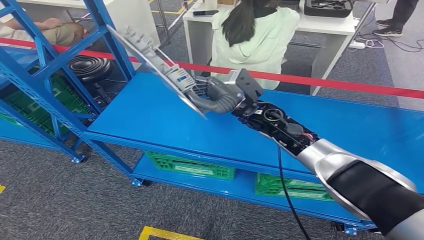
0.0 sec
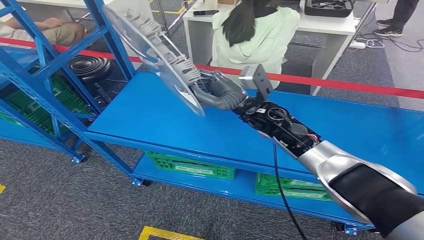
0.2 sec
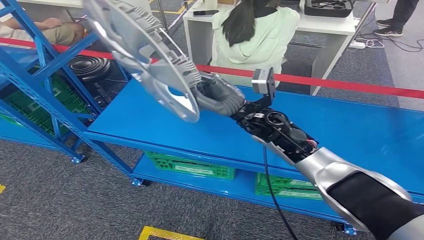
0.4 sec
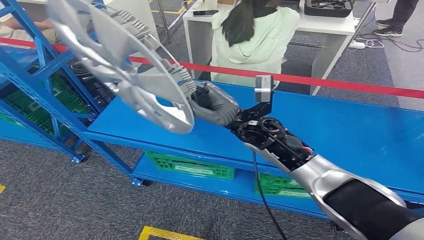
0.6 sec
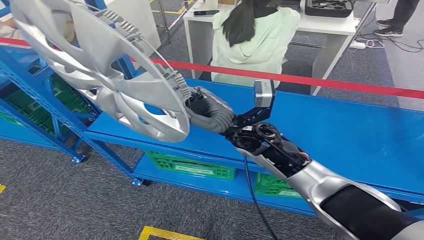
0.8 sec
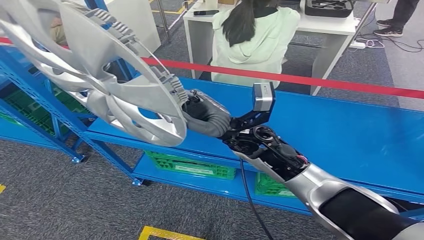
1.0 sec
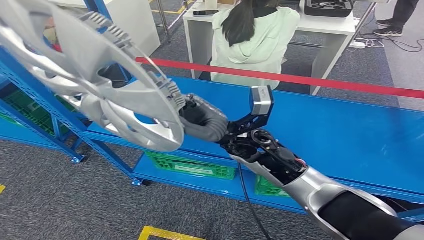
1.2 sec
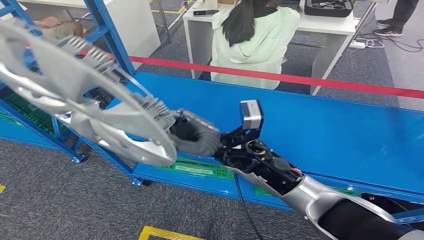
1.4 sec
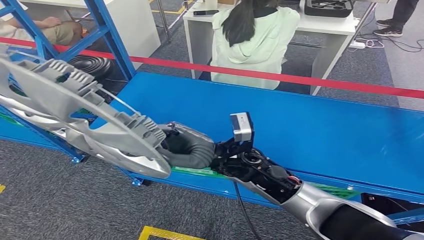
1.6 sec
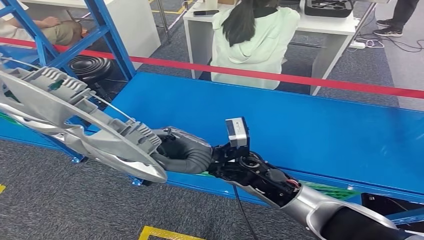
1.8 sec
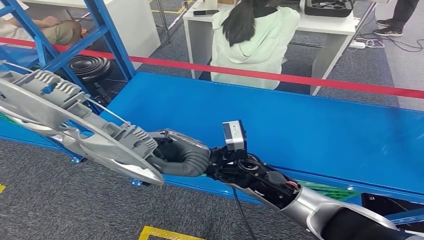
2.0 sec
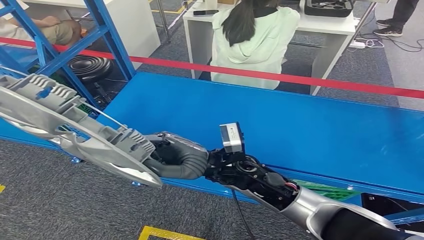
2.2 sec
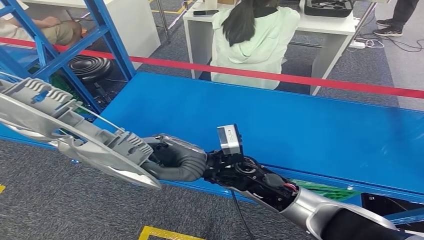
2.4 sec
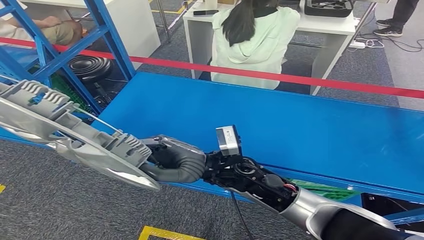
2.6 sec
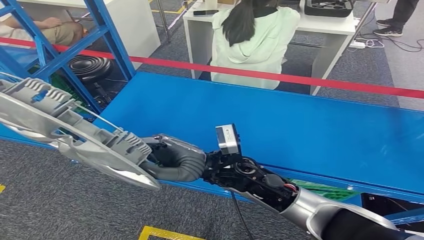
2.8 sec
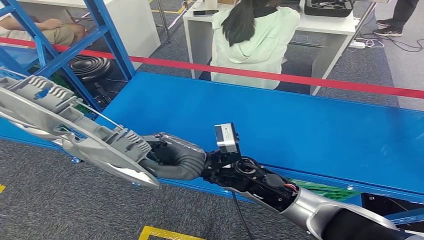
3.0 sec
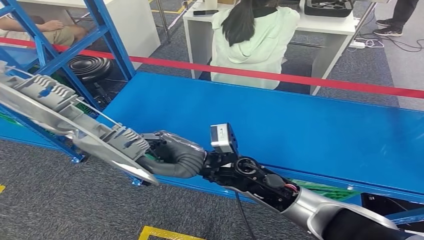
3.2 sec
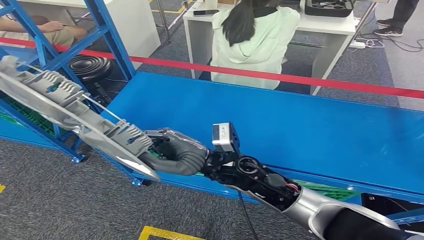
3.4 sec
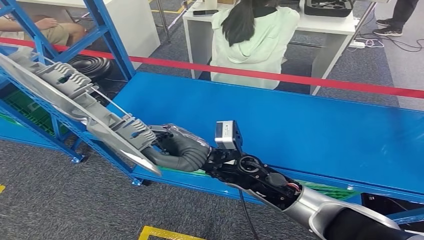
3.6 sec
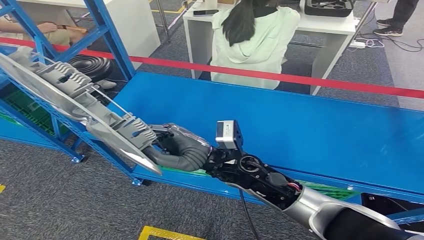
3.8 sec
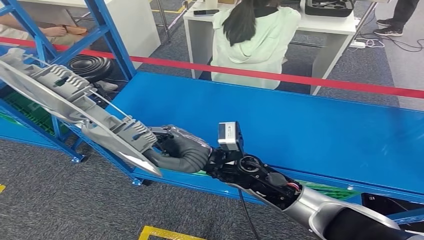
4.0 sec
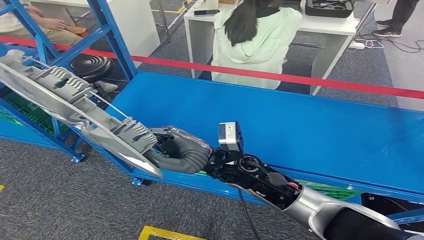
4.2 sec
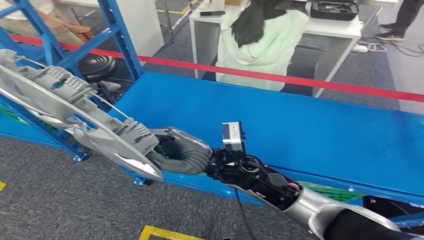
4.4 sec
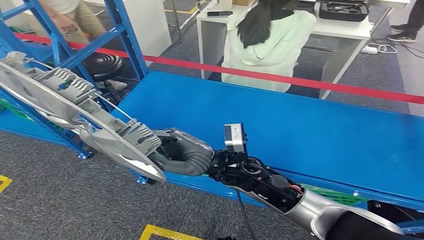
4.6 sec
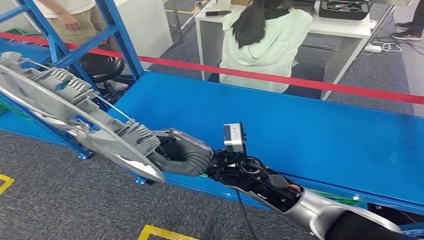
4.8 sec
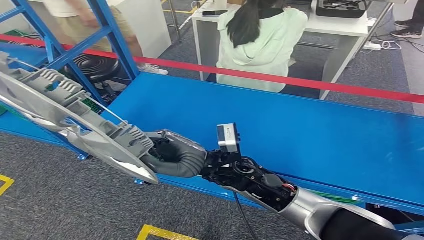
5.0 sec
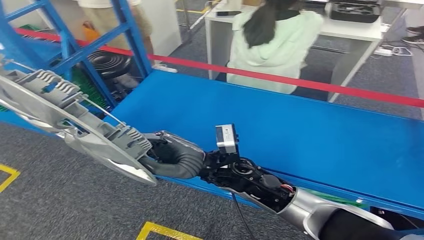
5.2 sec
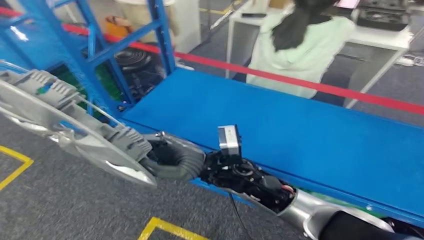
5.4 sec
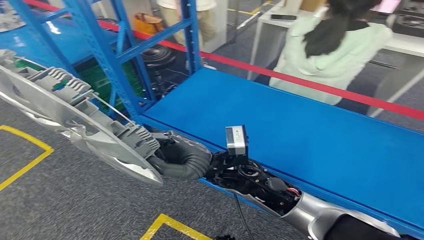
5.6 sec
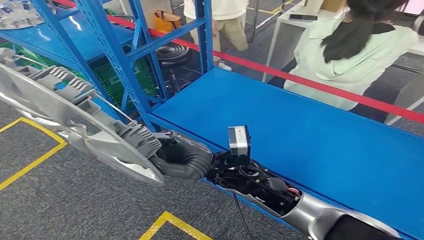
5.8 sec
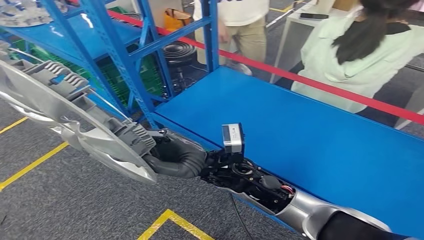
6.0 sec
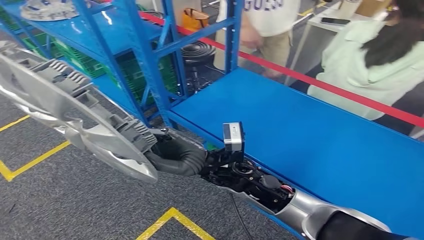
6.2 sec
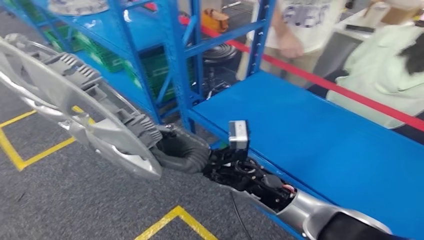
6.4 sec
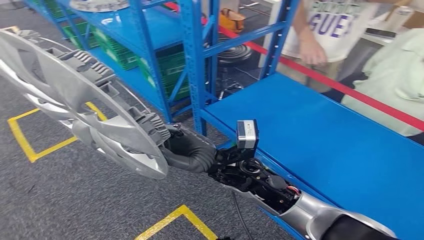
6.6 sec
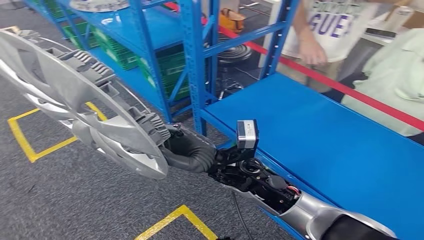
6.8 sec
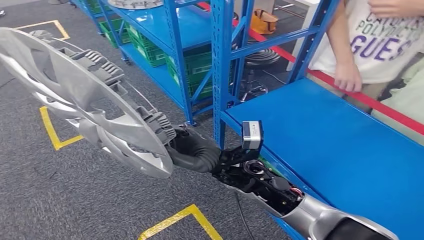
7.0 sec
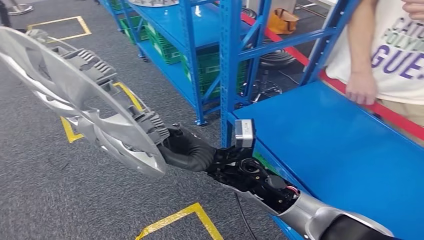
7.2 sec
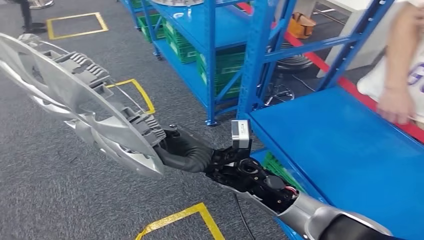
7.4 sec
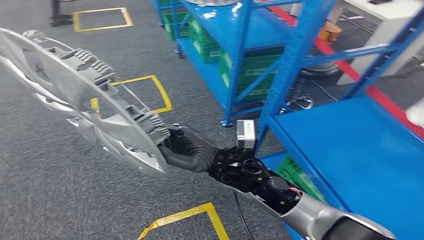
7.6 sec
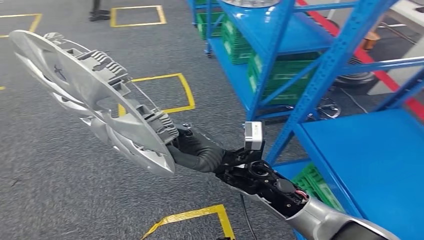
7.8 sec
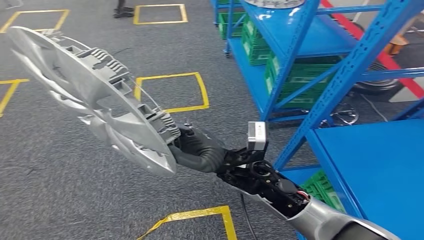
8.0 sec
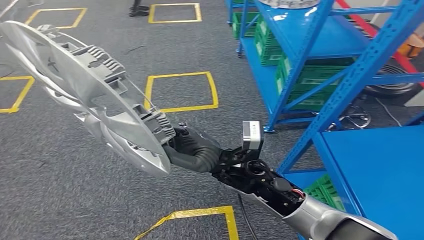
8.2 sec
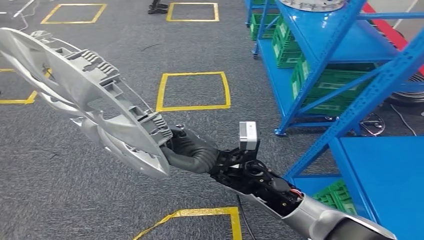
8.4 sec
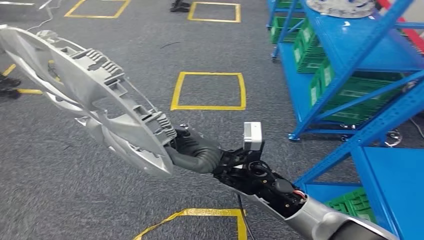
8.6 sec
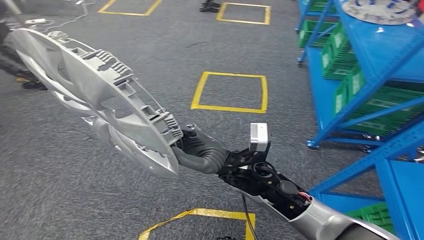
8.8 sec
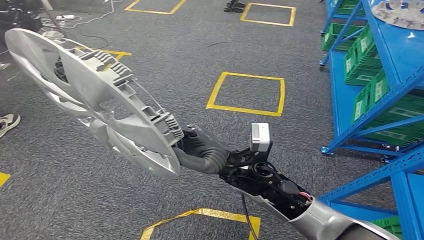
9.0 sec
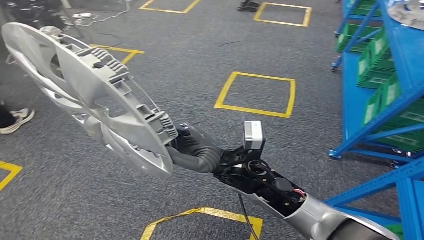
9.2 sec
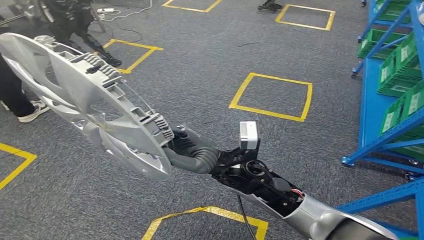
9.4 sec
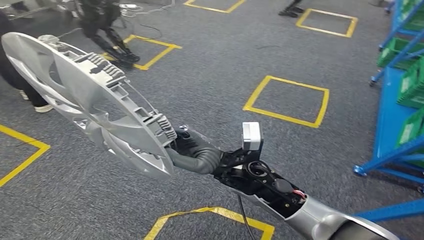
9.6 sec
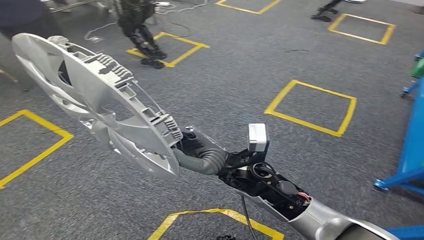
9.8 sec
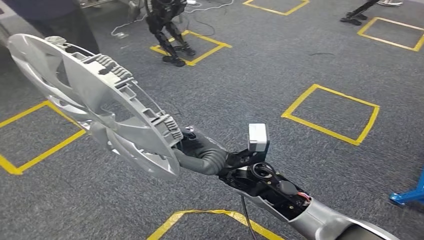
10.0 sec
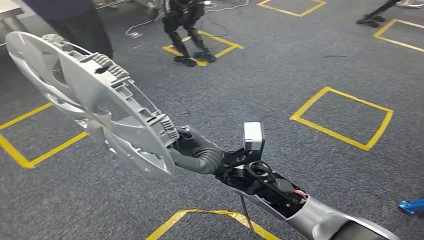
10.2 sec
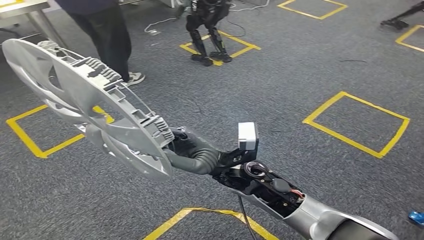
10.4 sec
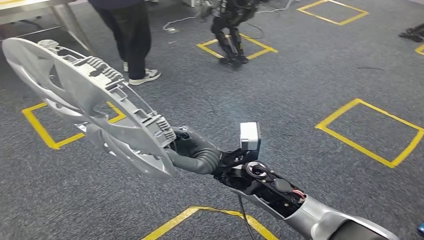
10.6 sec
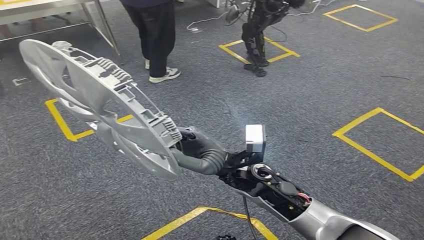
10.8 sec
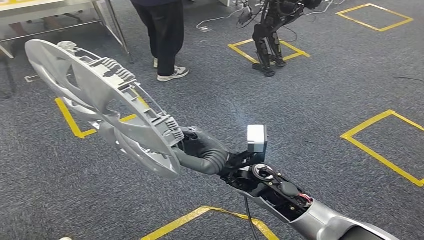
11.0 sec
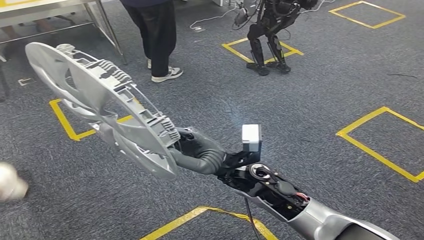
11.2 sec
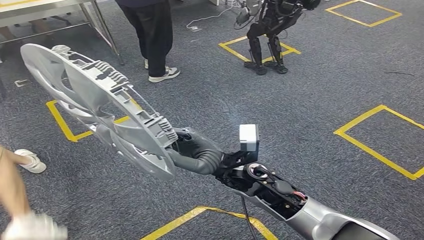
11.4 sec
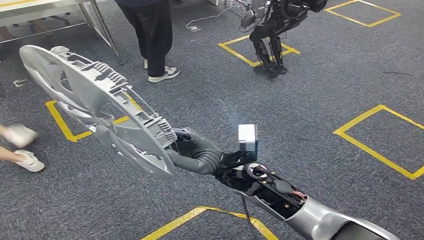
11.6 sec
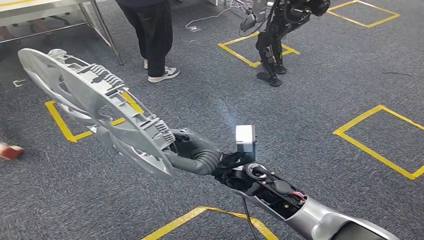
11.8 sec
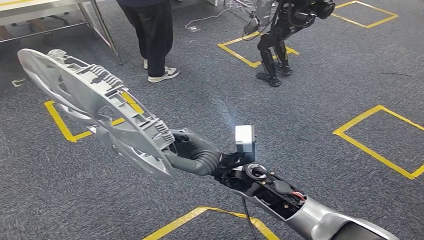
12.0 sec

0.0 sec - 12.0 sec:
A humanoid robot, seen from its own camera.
Step, 0.0 sec - 6.2 sec: Pick up the small component from the shelf.
1.6 sec - 3.0 sec: The hands make only small movements.

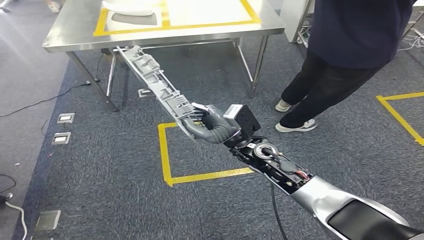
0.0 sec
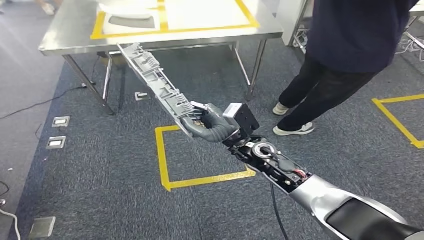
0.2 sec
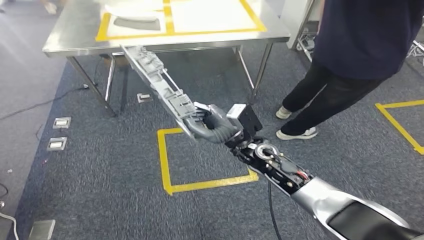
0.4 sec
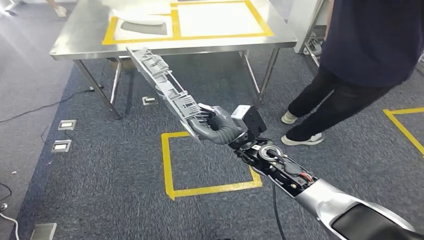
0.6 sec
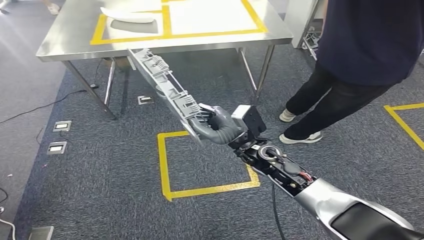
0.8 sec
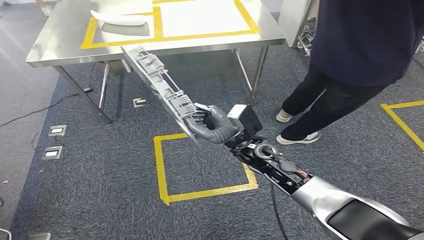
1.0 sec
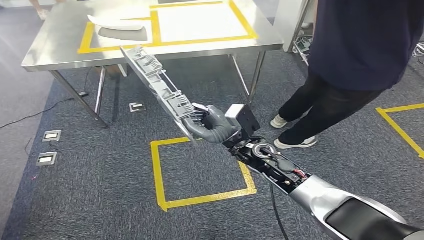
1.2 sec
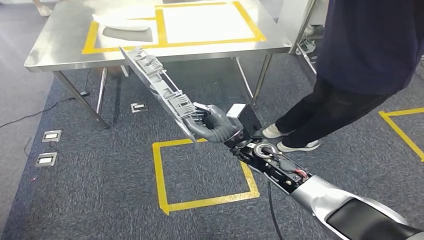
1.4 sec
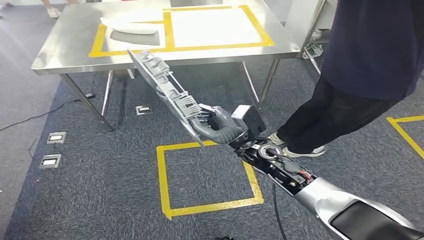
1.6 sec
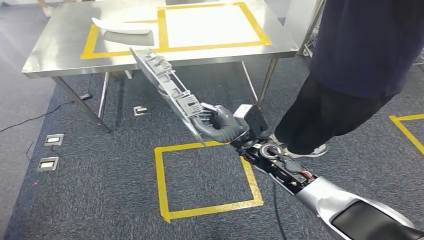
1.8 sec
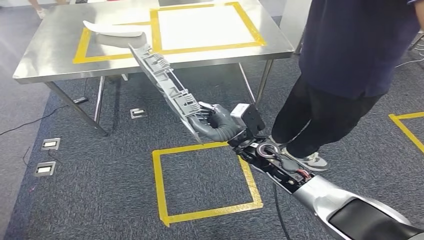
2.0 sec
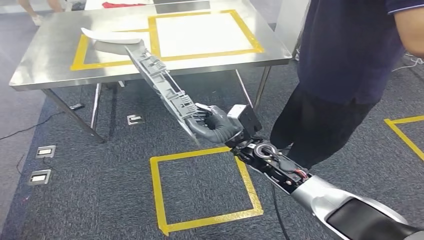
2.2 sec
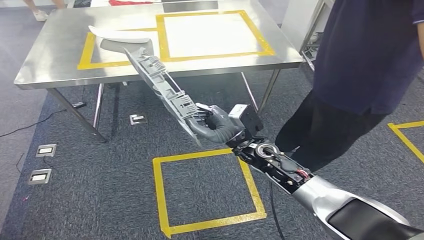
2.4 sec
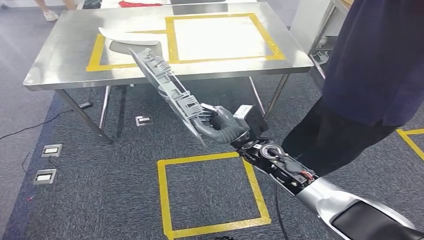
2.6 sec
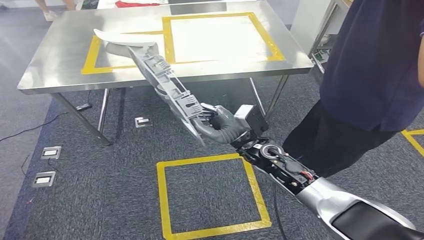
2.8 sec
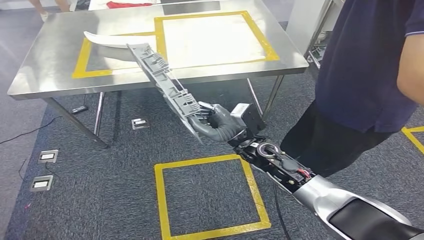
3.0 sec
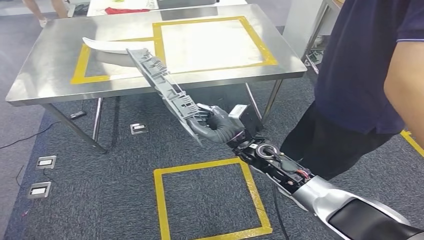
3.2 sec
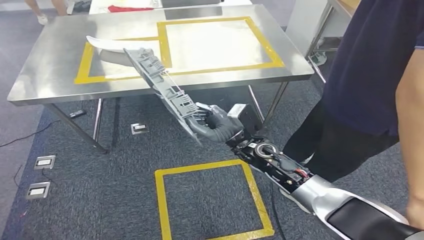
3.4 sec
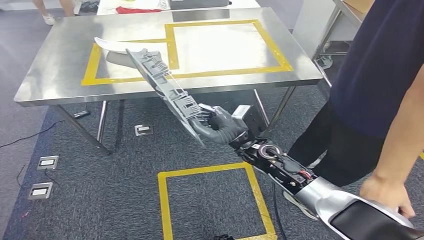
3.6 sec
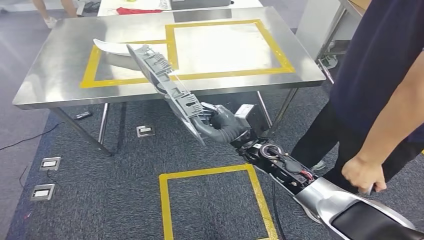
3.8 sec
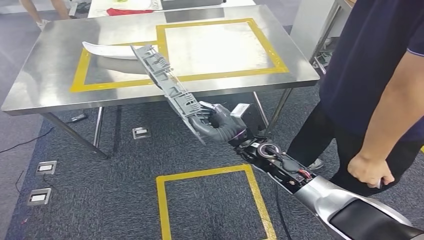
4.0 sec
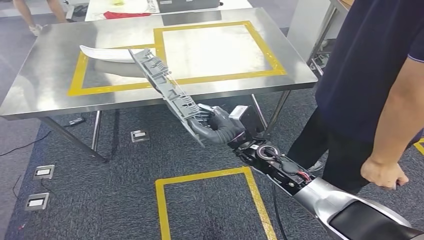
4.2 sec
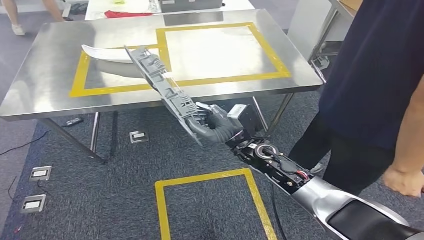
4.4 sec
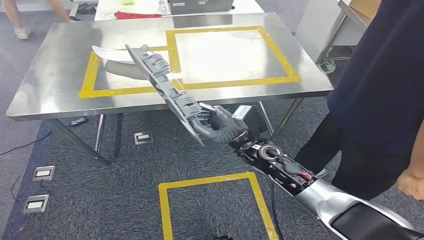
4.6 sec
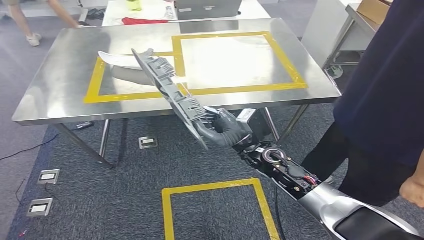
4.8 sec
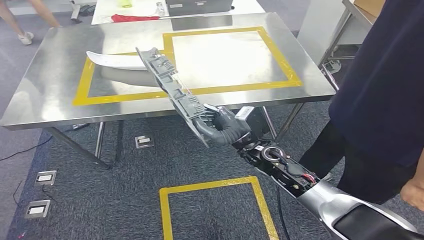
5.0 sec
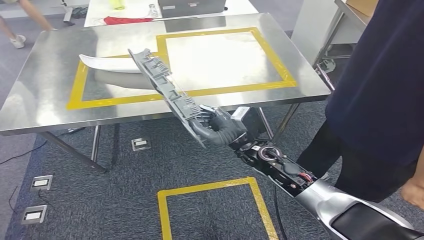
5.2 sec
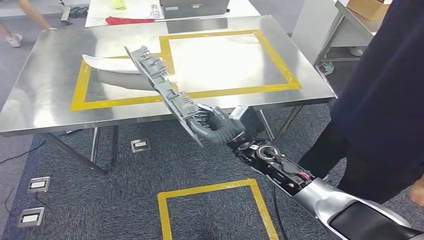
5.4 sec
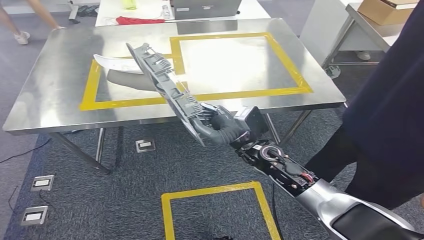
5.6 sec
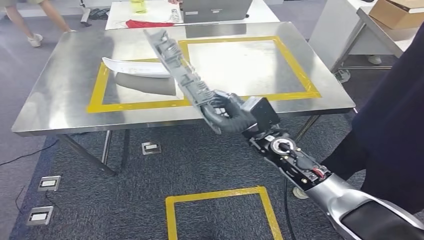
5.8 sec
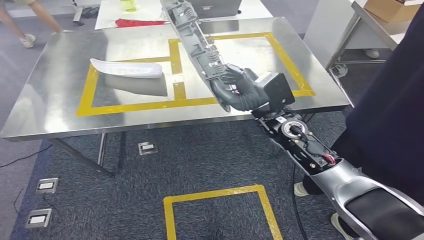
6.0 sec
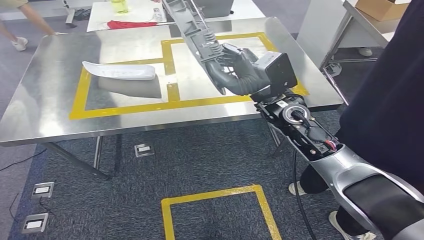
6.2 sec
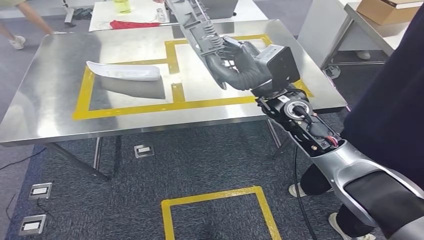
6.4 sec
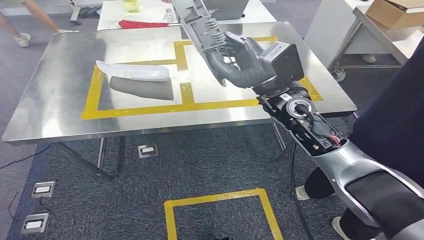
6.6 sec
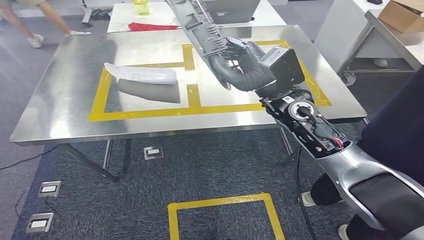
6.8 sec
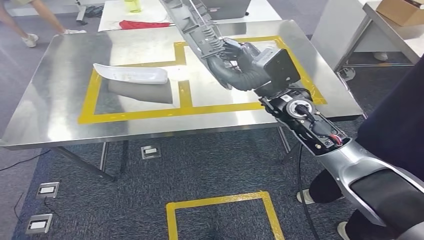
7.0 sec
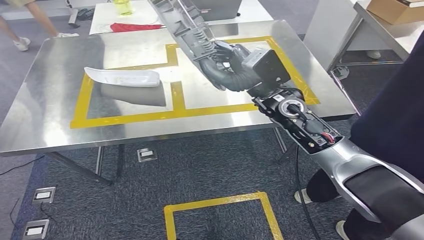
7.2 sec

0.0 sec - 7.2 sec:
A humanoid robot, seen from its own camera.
Step, 0.0 sec - 2.4 sec: Move the small component to the workbench.
